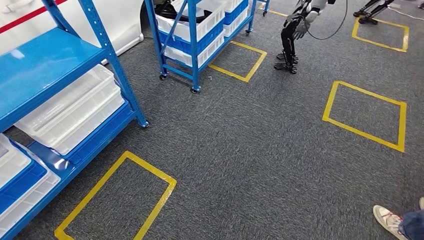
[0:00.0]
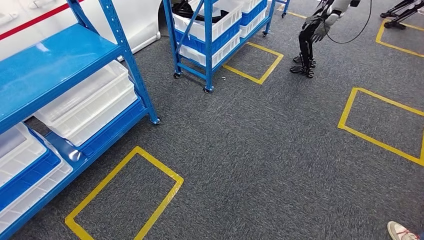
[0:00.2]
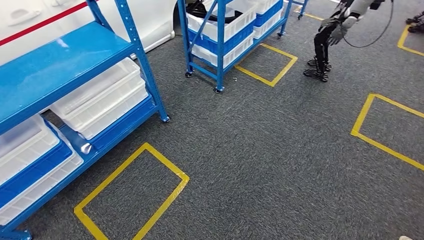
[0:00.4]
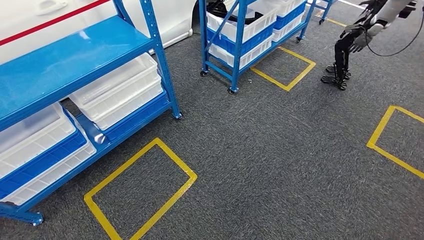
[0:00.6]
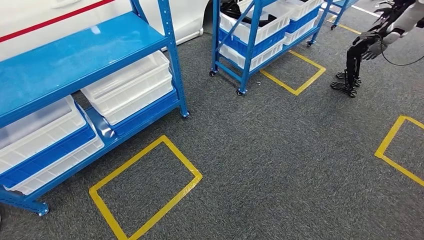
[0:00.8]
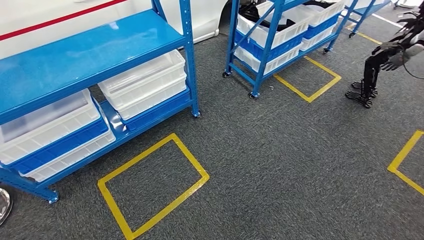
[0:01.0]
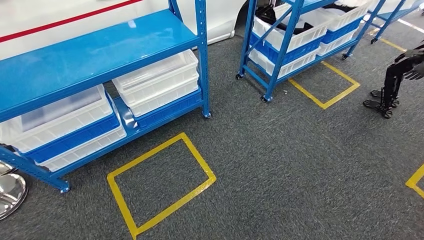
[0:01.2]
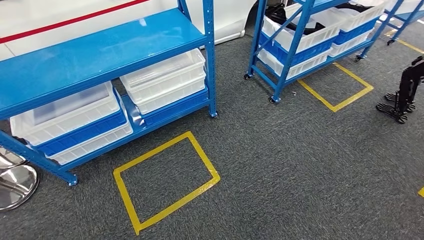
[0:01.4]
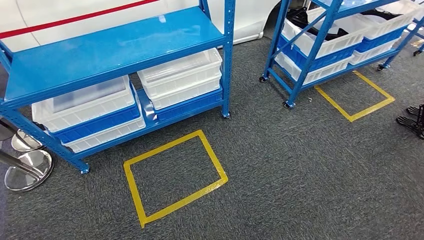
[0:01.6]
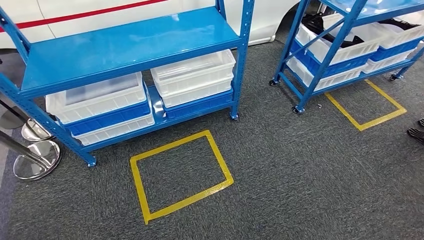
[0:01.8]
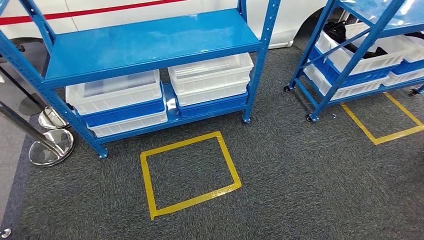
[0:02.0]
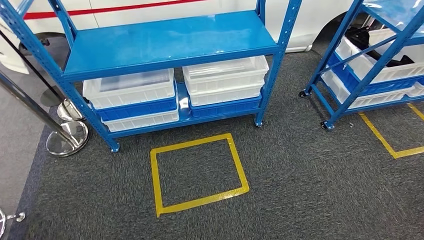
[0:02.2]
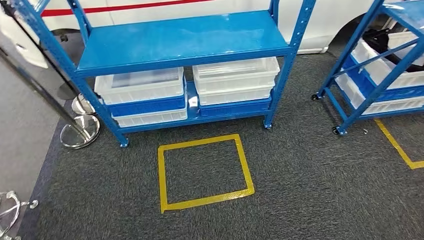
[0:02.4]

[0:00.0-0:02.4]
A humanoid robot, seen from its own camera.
Step, 0:00.0 to 0:02.2: Move to the initial position of the shelf.

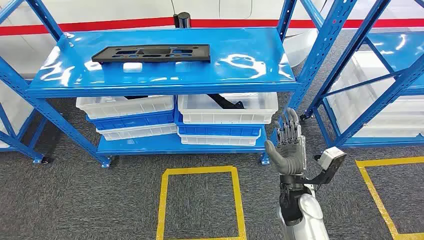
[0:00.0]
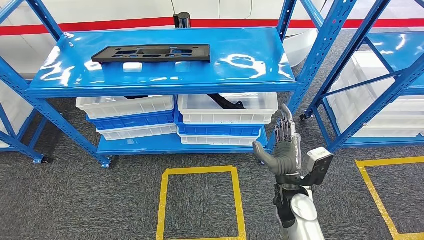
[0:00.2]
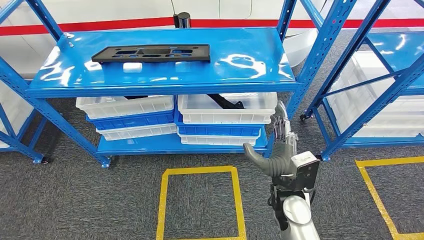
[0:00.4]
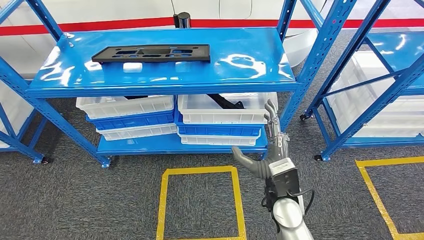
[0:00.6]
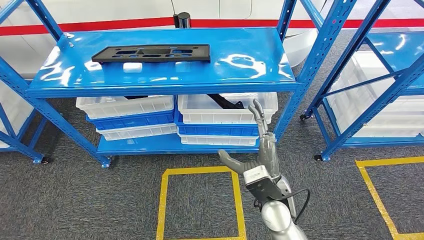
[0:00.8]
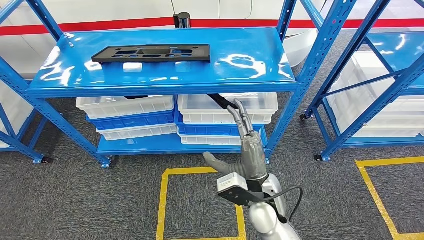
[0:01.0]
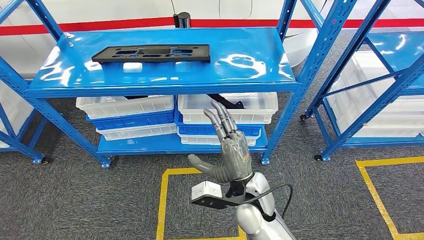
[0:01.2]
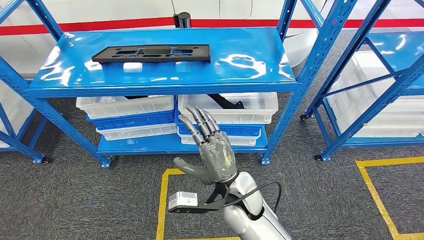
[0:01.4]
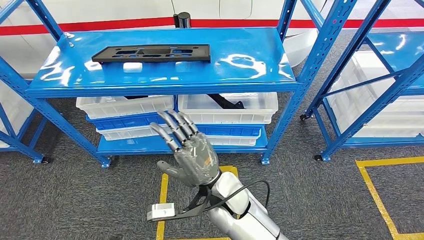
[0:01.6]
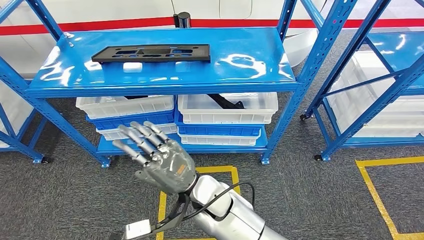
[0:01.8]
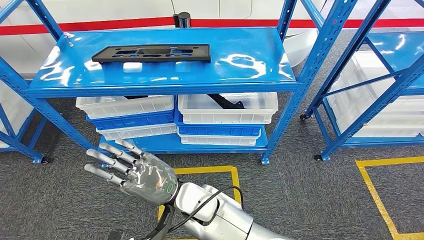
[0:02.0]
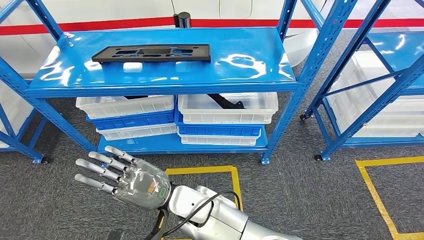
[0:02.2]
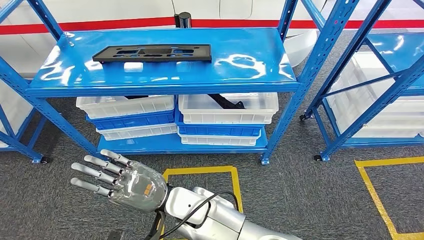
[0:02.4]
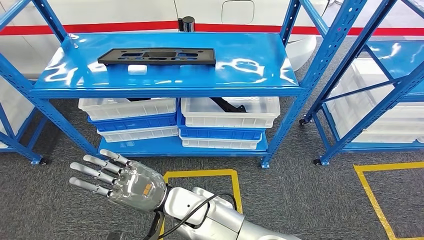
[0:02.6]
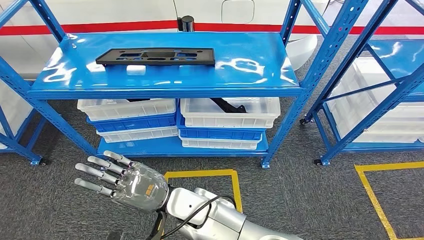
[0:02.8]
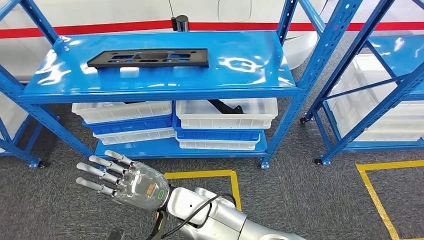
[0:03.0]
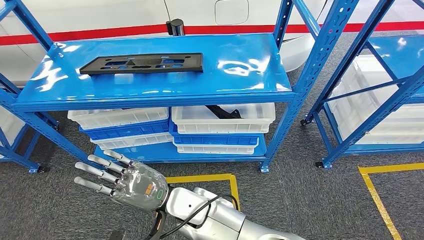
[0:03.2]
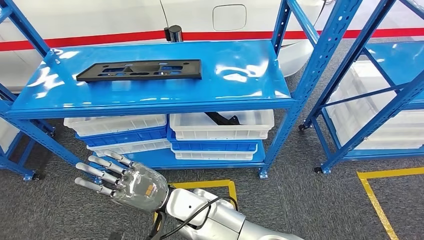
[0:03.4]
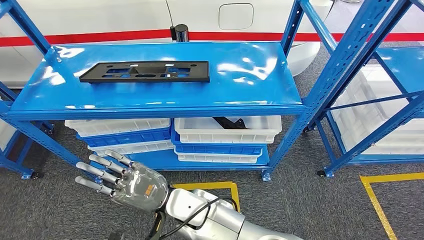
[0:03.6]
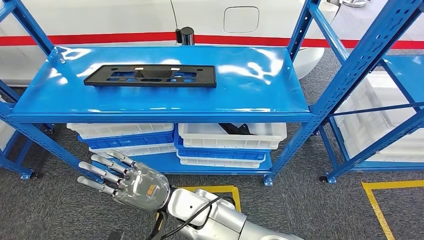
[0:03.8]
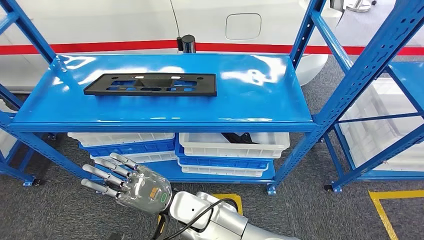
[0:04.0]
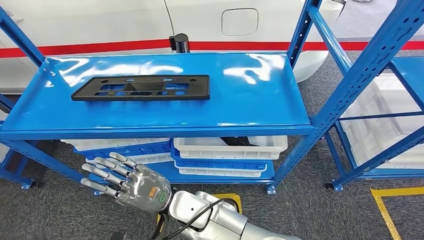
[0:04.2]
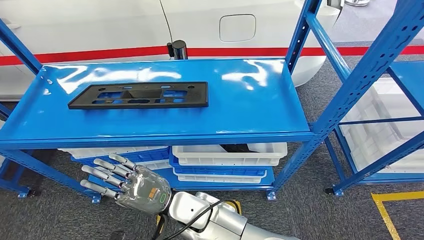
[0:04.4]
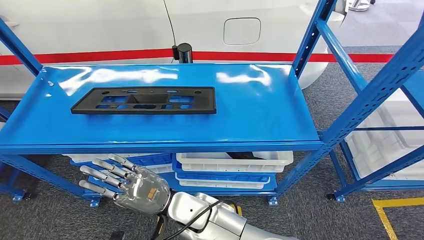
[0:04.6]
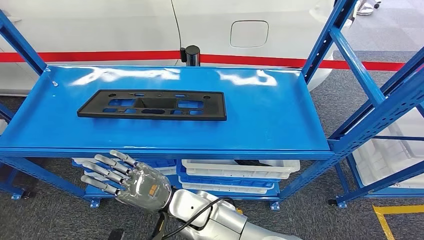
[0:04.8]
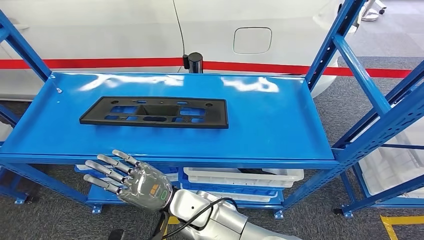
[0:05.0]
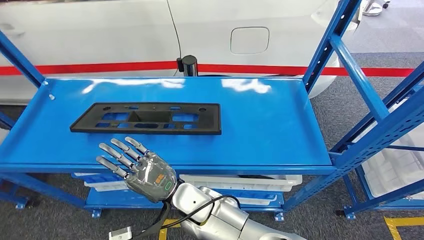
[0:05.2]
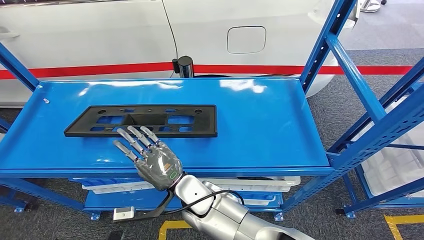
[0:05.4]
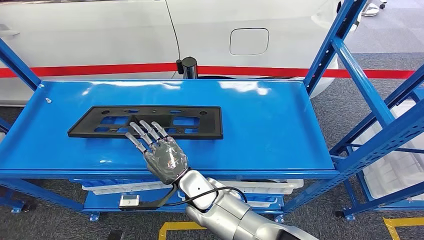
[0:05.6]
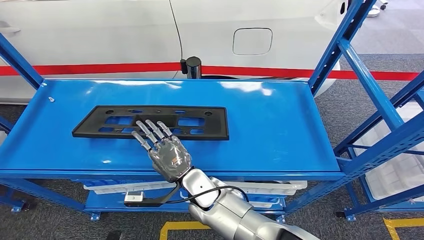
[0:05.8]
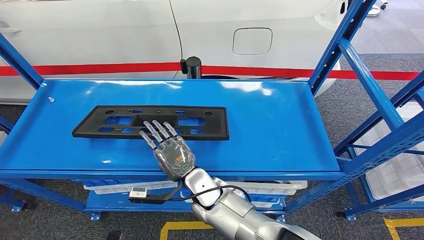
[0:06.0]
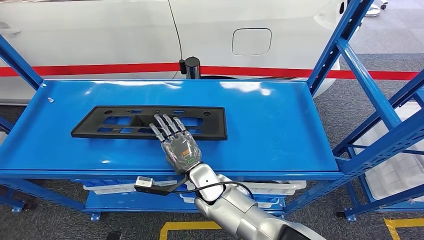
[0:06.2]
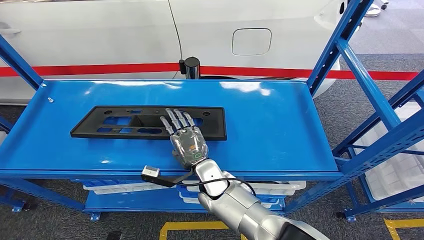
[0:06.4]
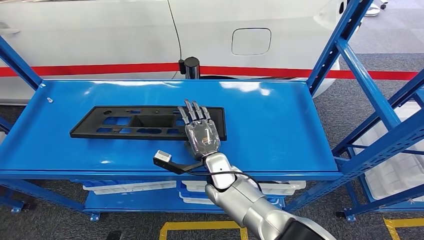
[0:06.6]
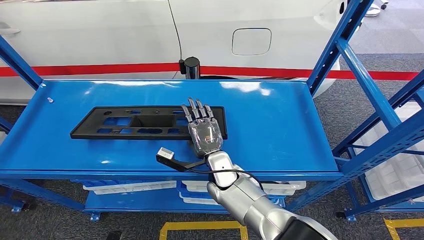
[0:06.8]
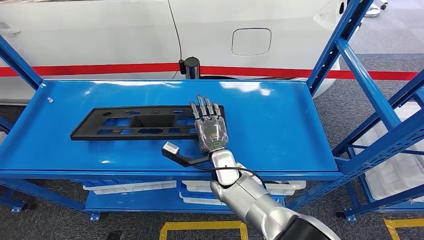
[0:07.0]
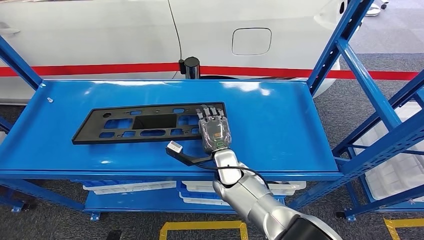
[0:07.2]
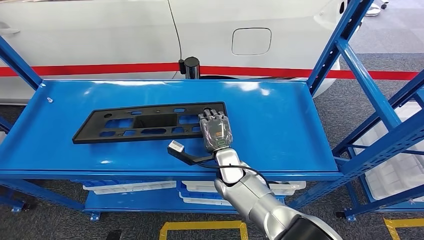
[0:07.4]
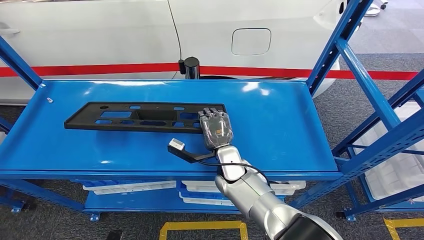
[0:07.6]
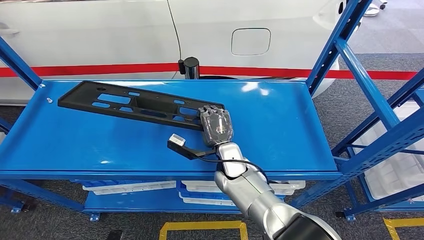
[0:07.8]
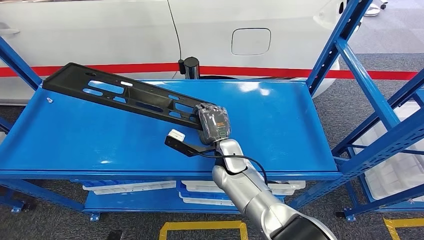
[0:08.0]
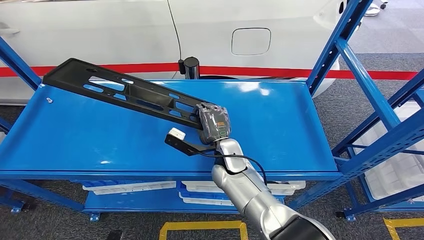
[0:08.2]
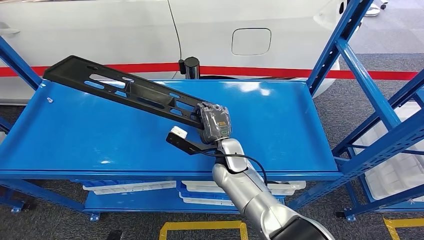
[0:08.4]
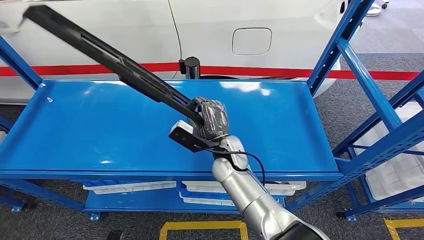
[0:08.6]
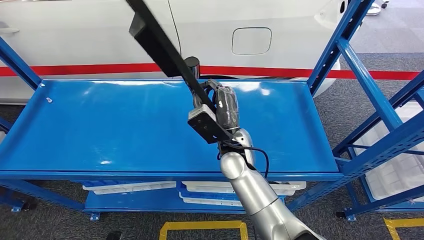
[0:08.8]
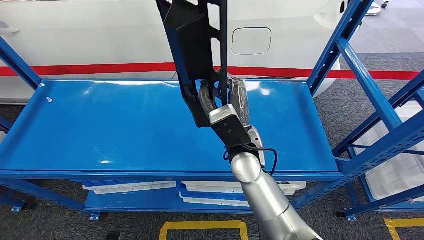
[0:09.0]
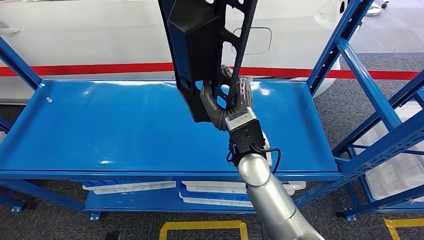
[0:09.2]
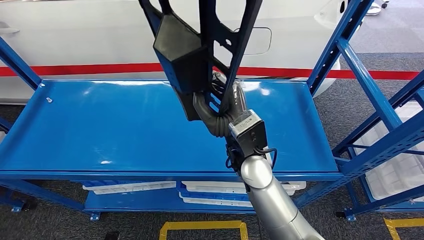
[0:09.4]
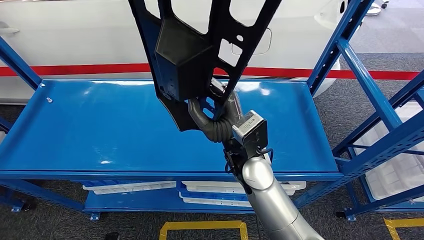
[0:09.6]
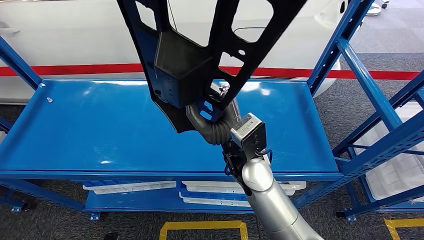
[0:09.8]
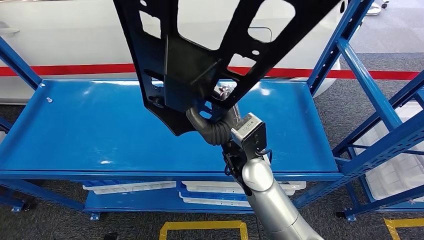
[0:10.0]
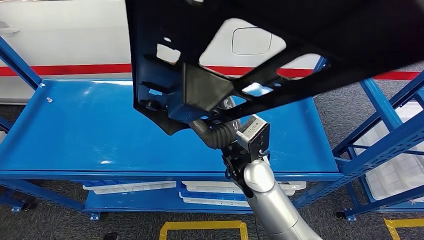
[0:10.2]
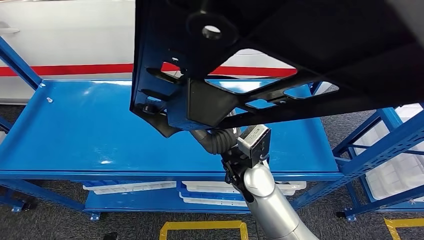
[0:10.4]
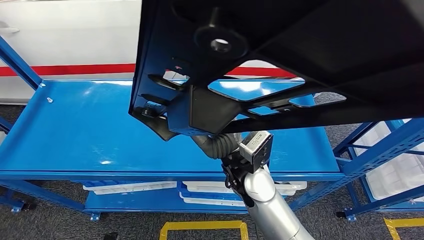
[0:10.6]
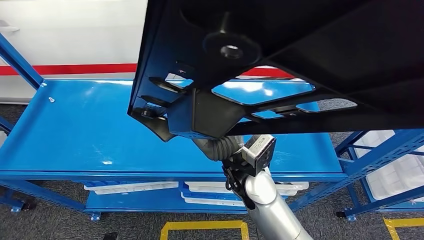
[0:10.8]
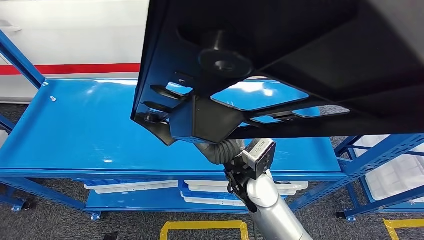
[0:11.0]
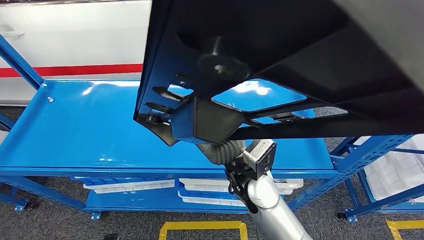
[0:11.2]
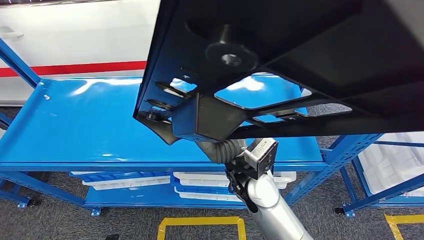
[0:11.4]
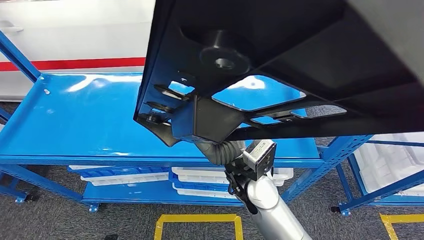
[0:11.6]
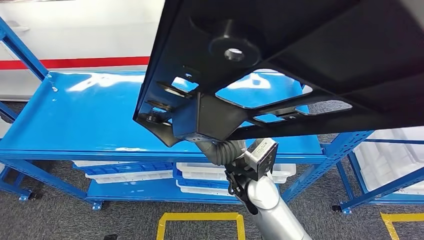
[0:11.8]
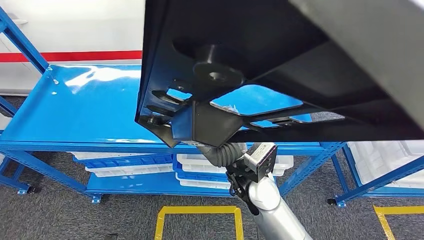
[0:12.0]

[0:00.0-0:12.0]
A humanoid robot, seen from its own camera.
0:06.0 to 0:07.6: The right hand travels to the right by roughly 5 cm.
0:07.6 to 0:09.0: The right hand travels upward by approximately 10 cm.

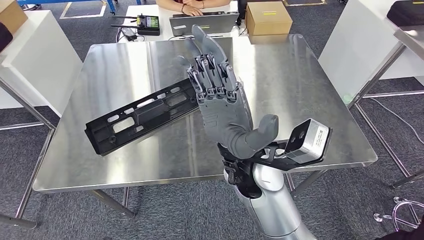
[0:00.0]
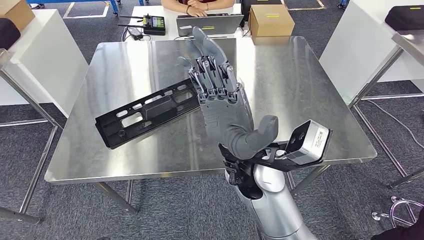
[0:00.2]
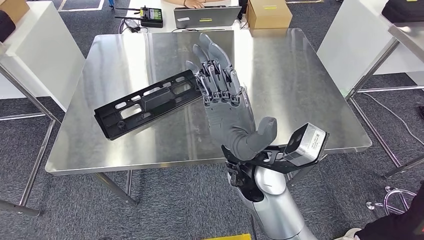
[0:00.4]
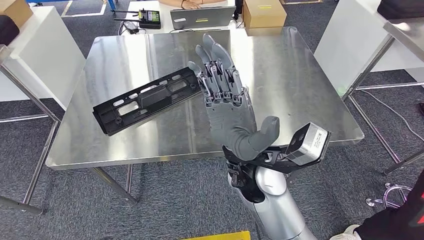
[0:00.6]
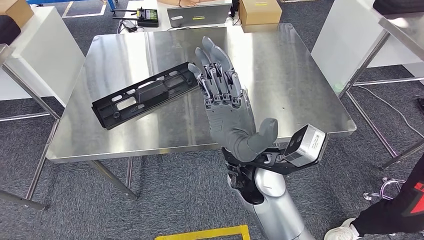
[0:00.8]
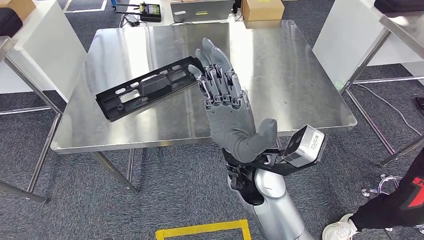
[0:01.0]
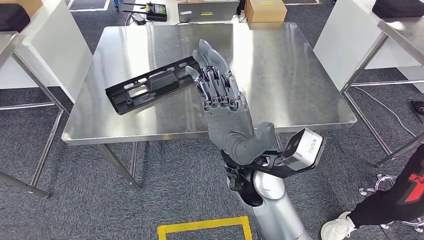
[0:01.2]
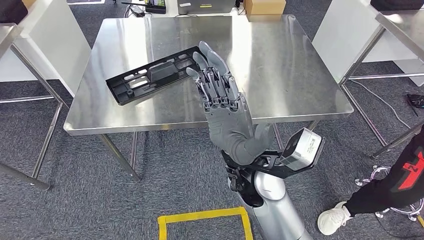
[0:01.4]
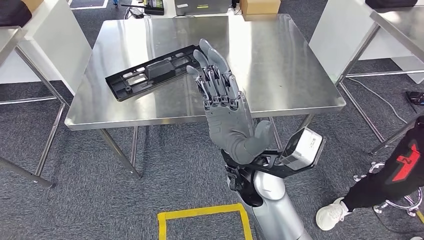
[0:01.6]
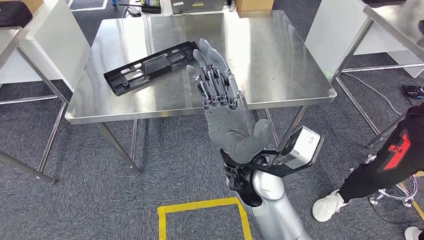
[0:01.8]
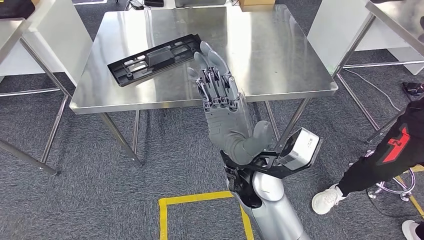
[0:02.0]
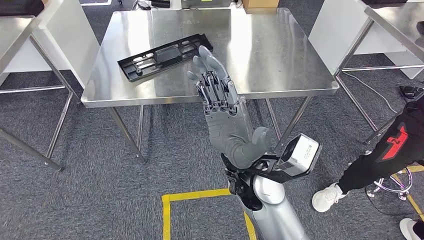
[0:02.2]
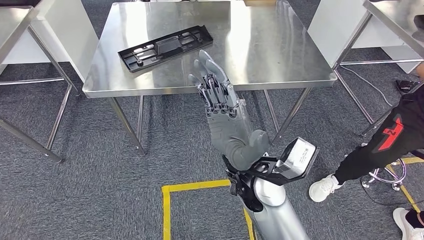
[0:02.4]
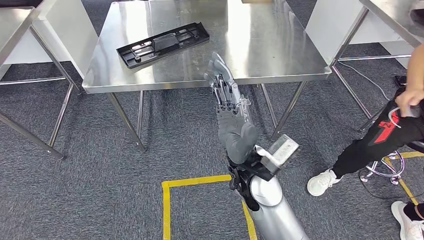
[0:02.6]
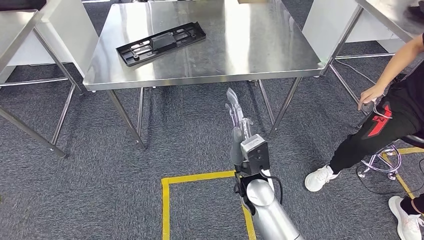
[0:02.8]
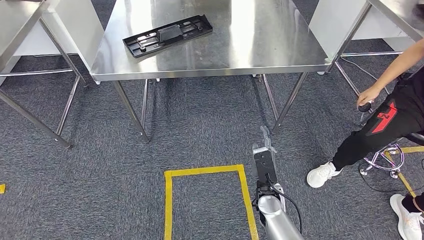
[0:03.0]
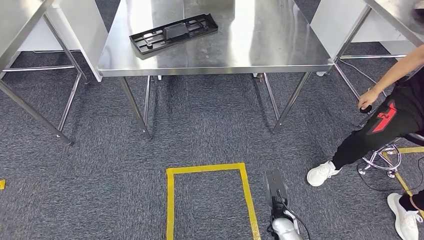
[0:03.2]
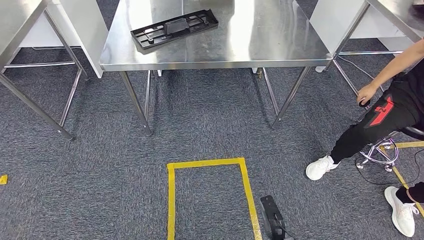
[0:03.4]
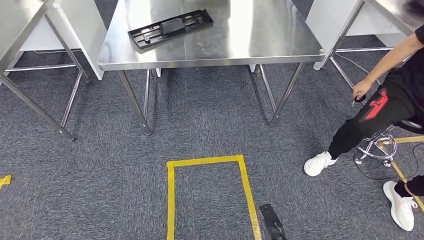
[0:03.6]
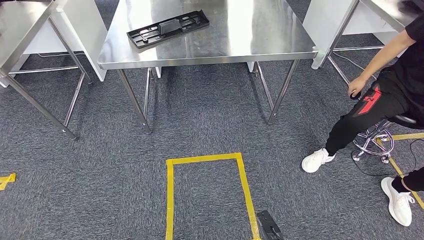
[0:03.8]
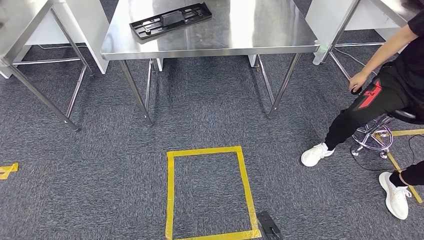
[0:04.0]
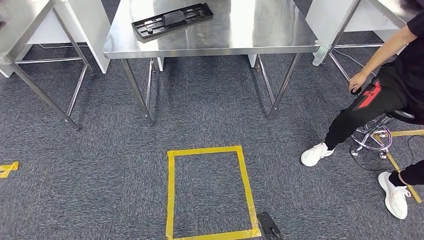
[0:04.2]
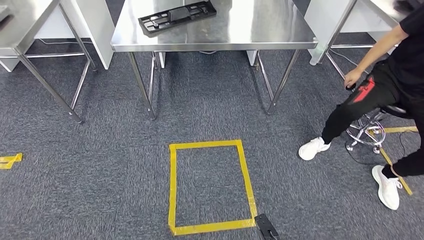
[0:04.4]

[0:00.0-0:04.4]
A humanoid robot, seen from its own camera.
Step, 0:00.0 to 0:04.4: Insert the large material into the corresponding slot on the workbench.
